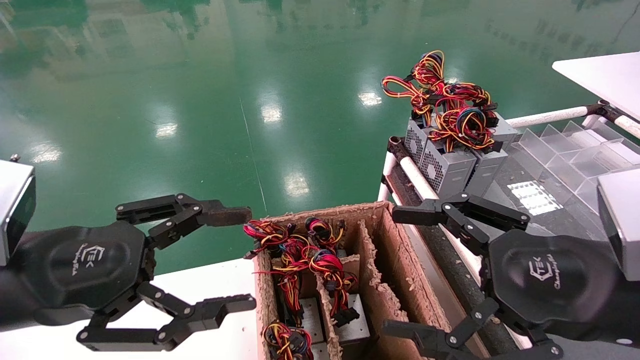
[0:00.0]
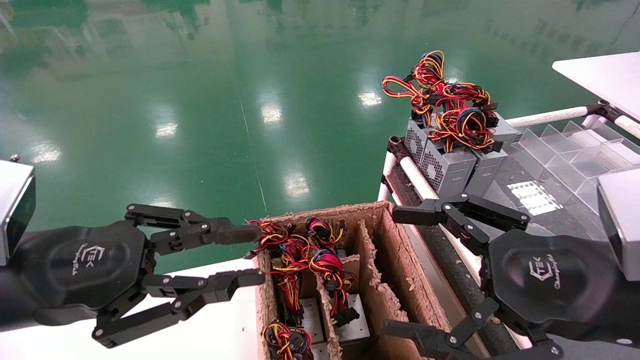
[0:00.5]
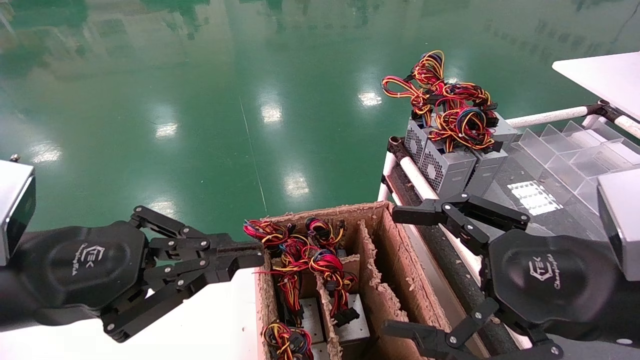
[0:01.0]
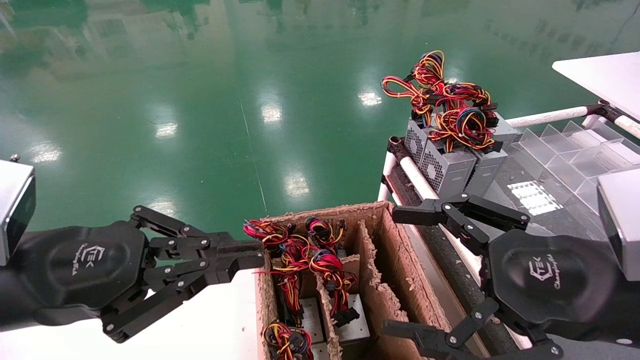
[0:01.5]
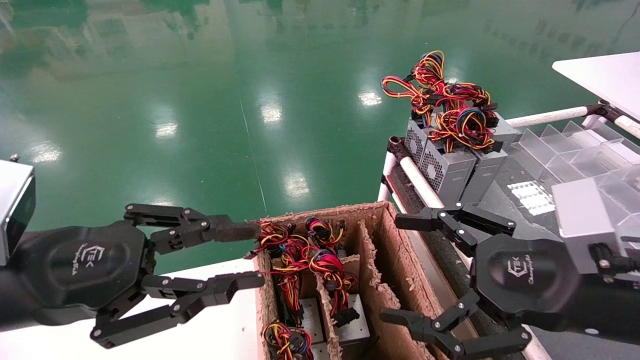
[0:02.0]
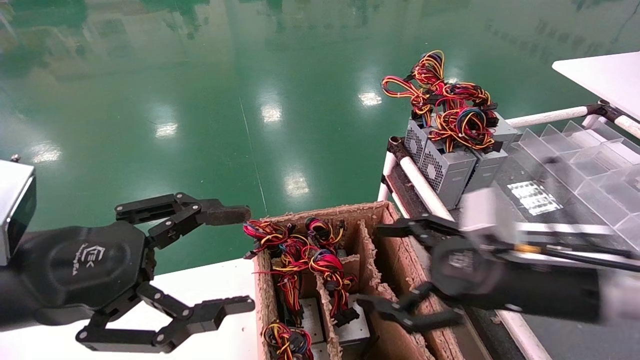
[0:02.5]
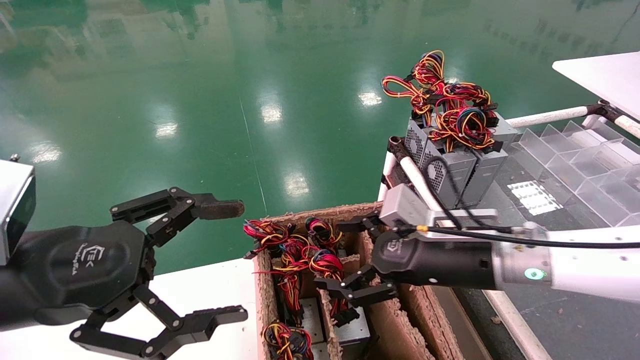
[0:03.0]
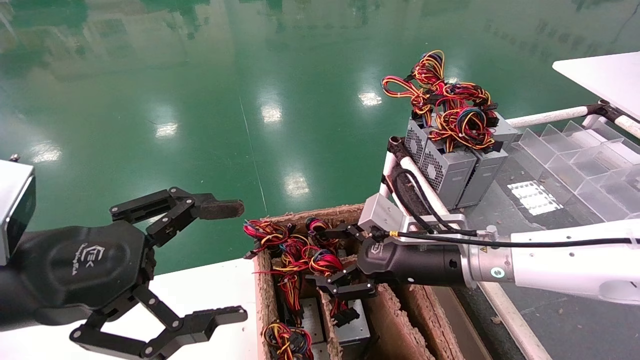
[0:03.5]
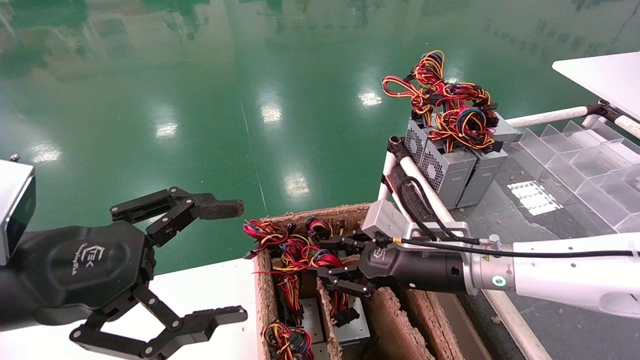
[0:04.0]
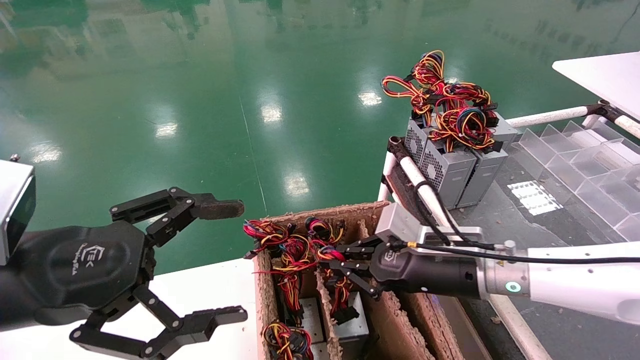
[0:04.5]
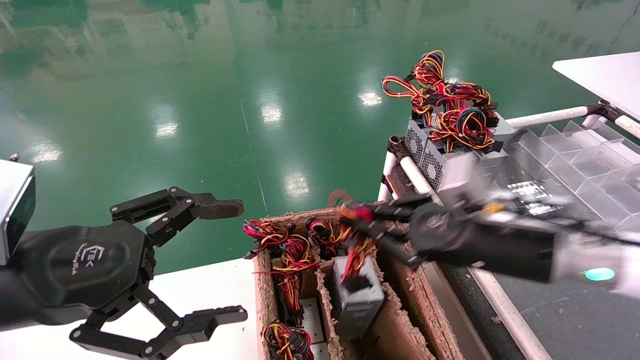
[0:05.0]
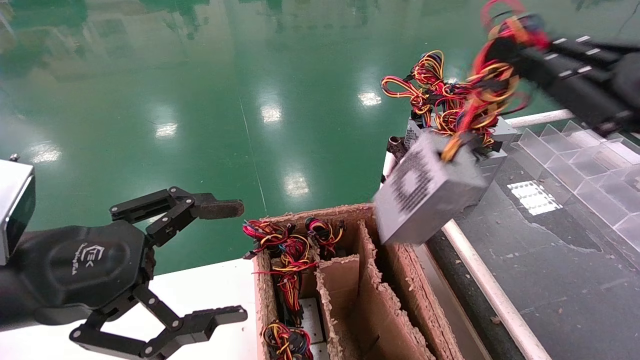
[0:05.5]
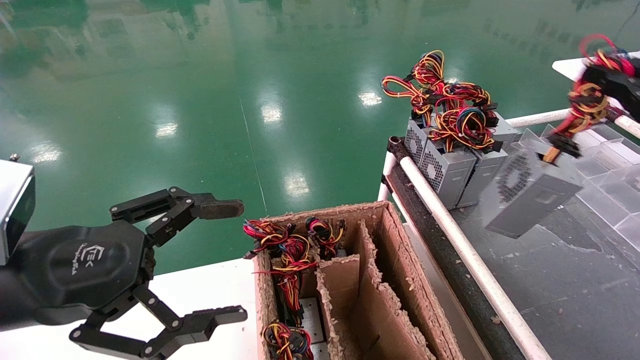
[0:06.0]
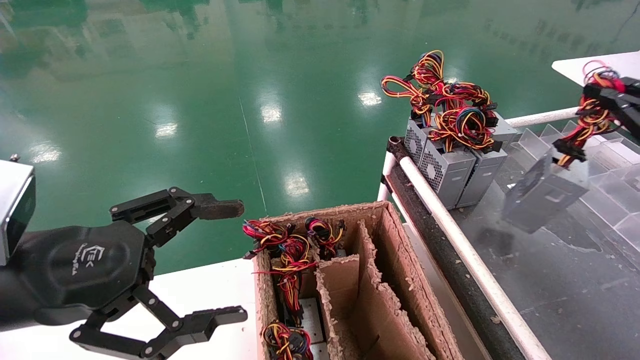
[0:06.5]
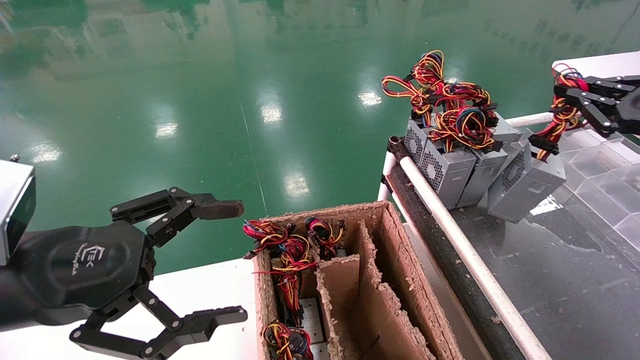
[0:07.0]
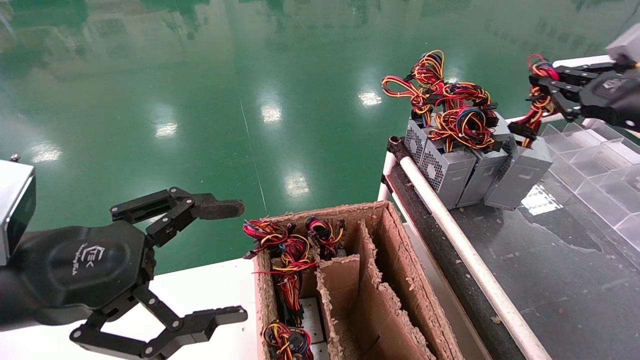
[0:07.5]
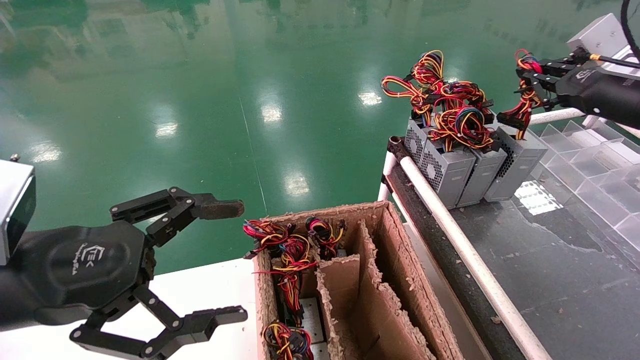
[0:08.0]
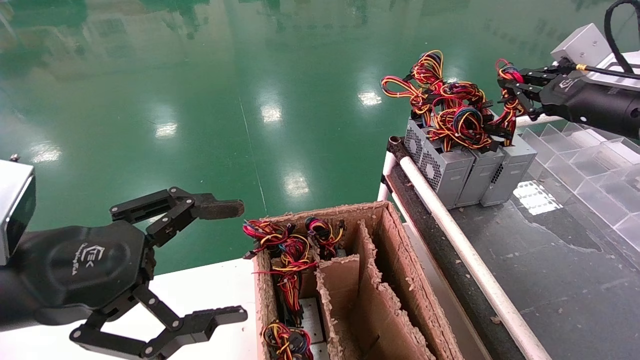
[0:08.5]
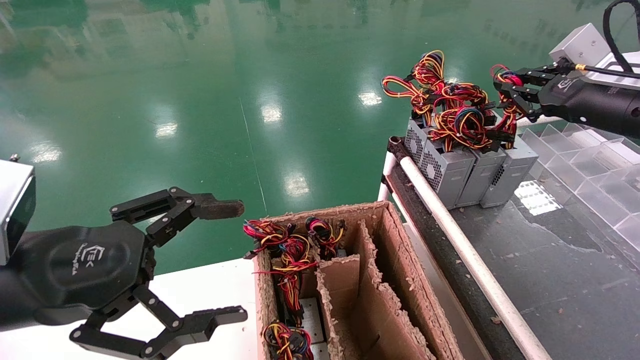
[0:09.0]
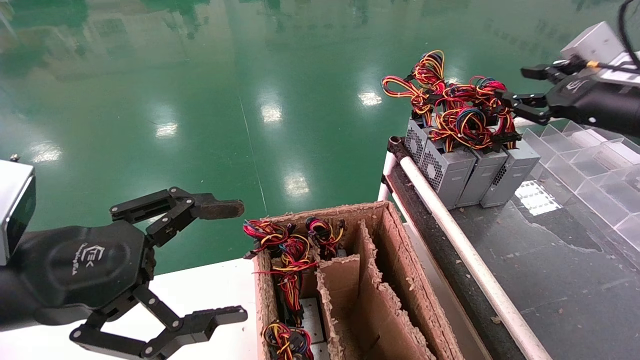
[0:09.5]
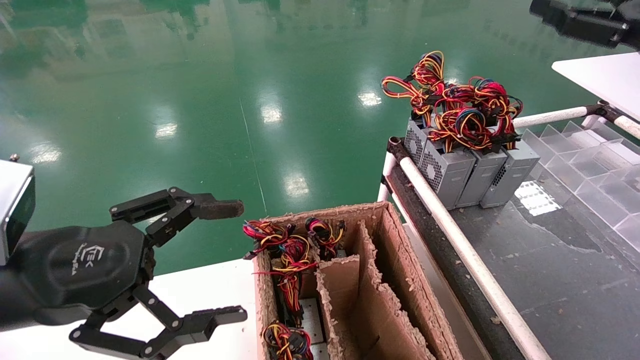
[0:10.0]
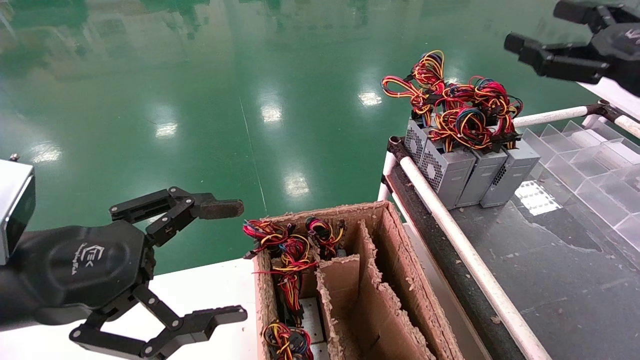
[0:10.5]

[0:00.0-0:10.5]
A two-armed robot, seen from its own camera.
Step, 0:01.5 to 0:04.5: Grab and lift the power supply from the large box.
Step, 0:05.0 to 0:09.0: Place the power supply on the operating table.
0:00.0 to 0:02.0: The left gripper closes.
0:02.0 to 0:04.0: The right gripper goes roughly 20 cm forward, to the left and downward, and closes; the left gripper opens.
0:04.0 to 0:06.5: The right gripper is displaced to the right and upward by some 35 cm, and closes its fingers.
0:06.5 to 0:08.5: The right gripper travels forward and to the left by some 15 cm.
0:08.5 to 0:10.5: The right gripper moves backward, about 10 cm, and opens its fingers.

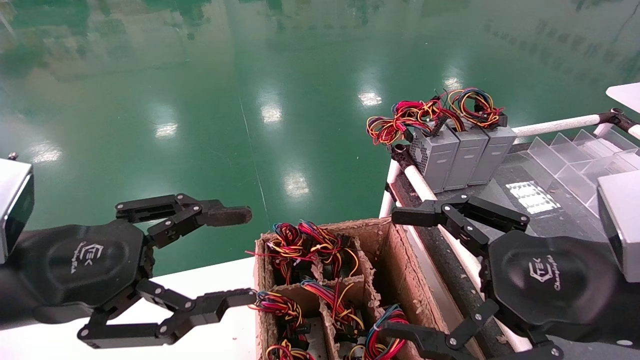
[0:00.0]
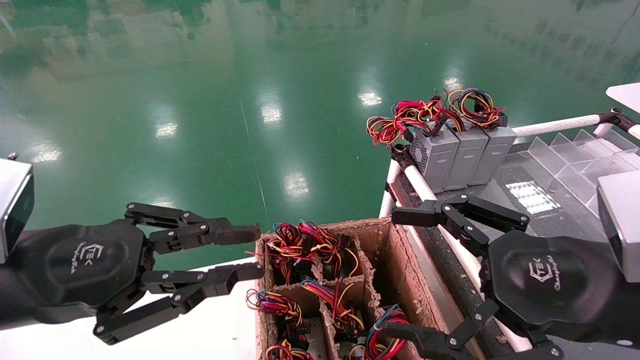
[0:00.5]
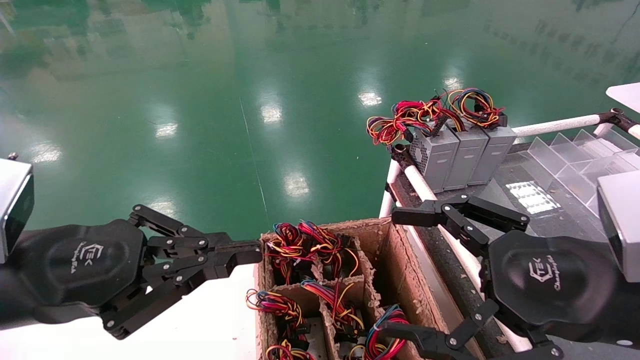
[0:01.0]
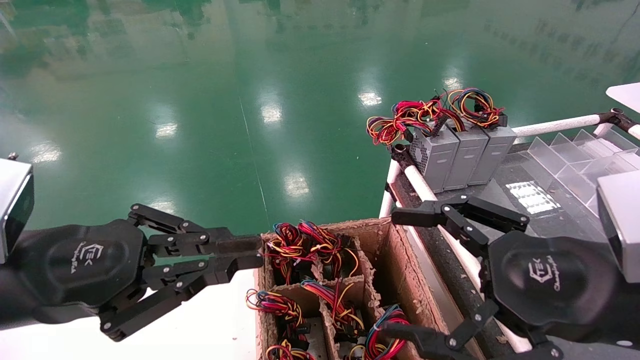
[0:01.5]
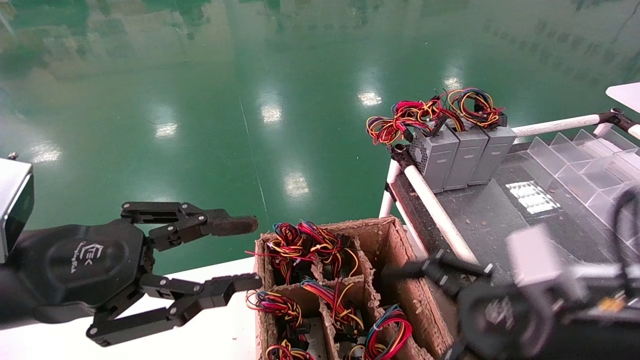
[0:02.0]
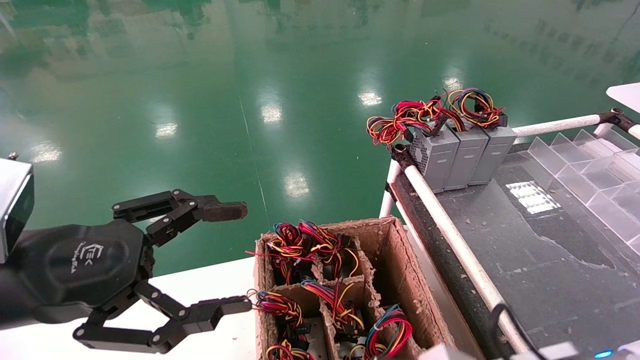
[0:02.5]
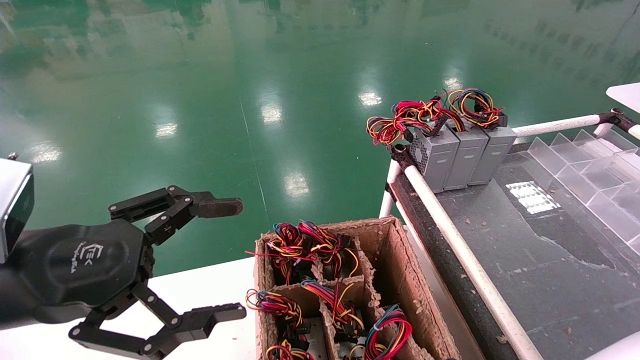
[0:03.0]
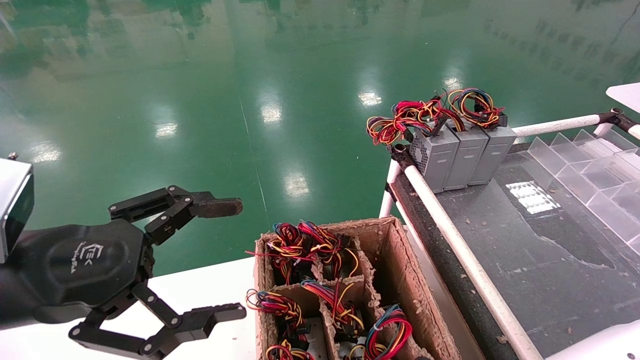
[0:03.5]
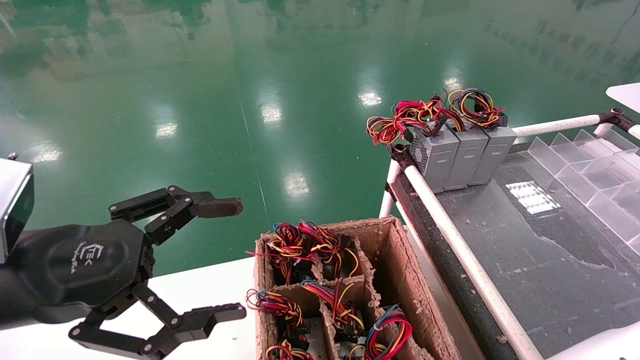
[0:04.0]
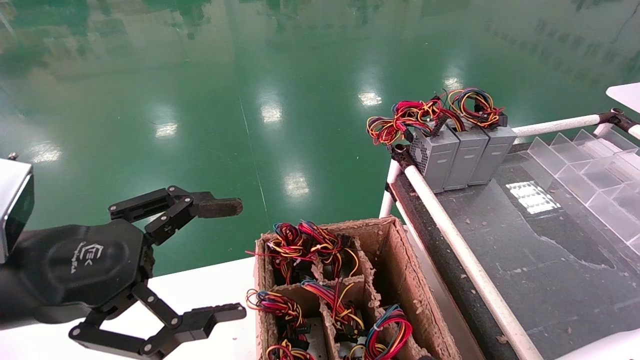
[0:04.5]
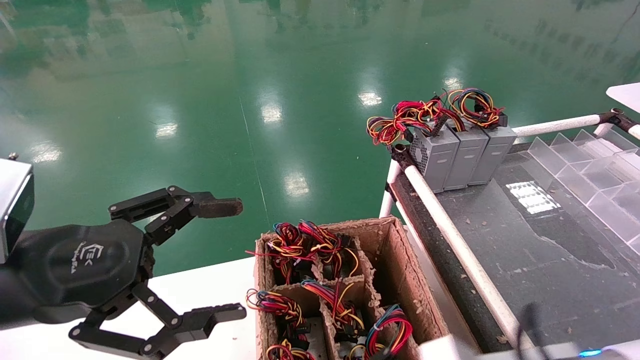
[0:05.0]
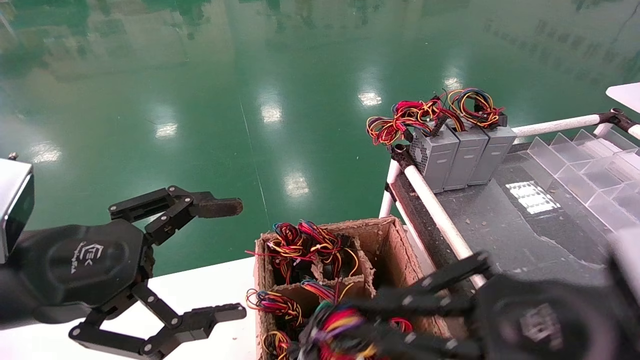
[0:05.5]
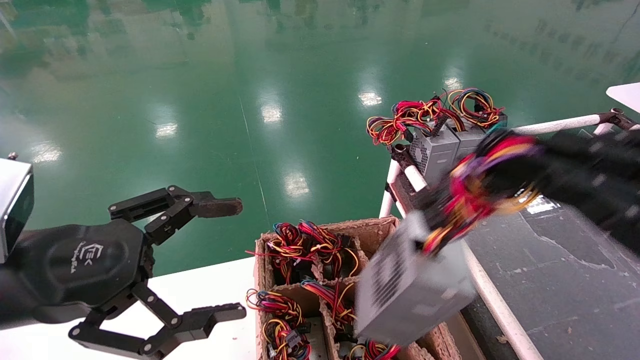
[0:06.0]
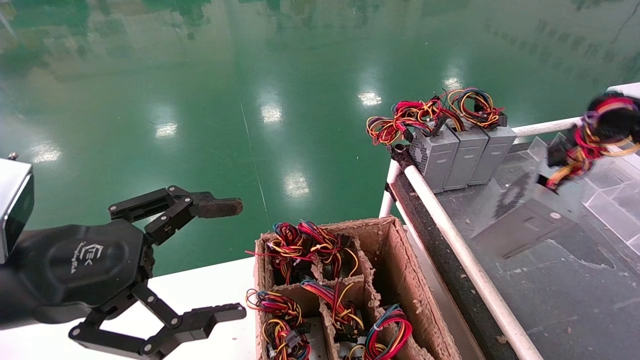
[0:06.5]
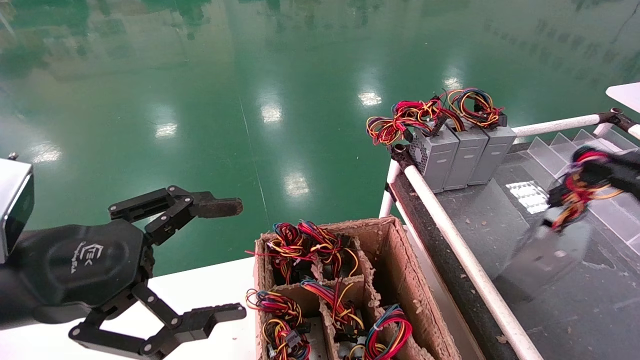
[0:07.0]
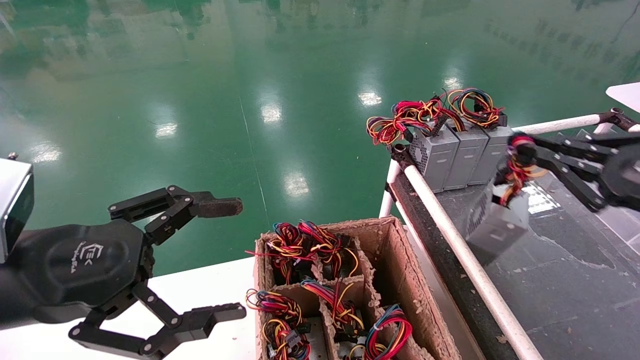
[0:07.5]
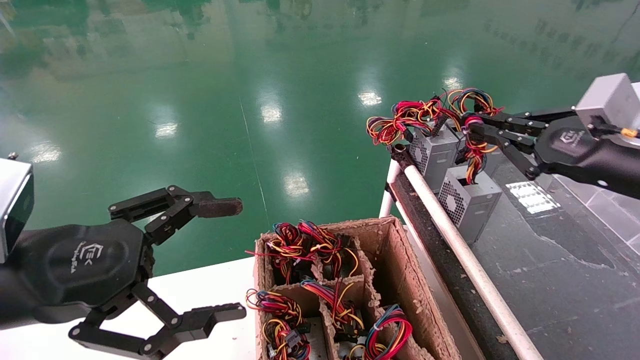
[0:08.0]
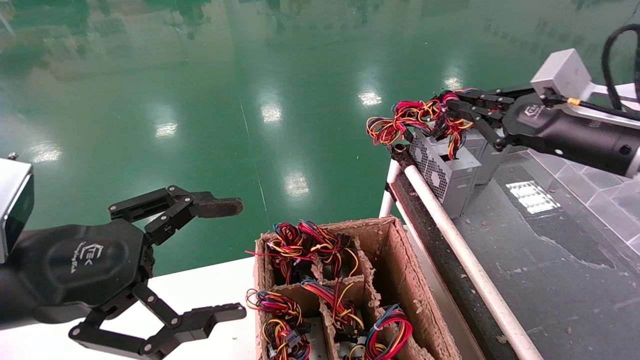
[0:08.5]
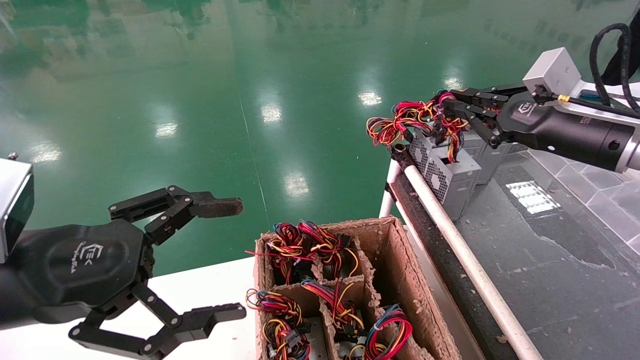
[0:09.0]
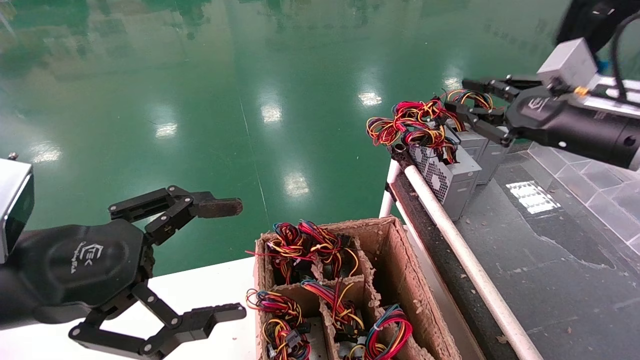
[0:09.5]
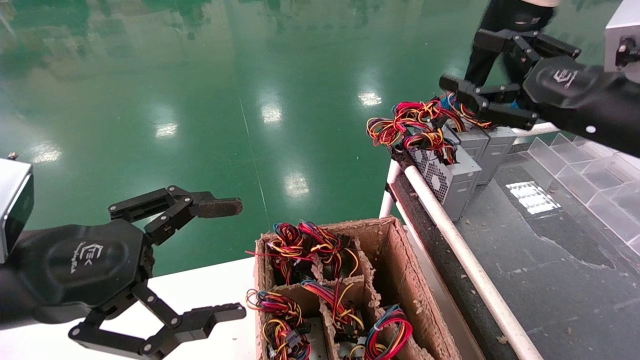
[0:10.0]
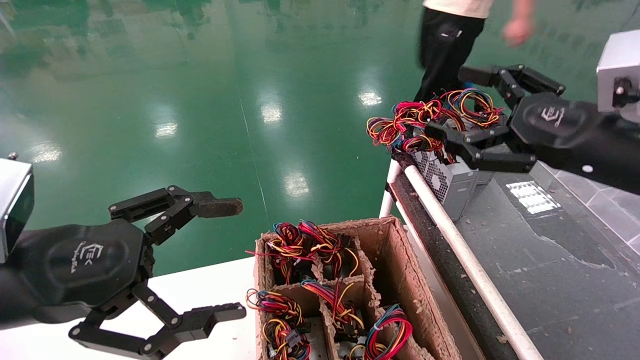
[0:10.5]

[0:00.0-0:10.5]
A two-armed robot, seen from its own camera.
Step, 0:01.5 to 0:04.5: Grab and lift the power supply from the large box.
Step, 0:05.0 to 0:09.0: Place the power supply on the operating table.
0:00.0 to 0:02.0: The right gripper ends up some 5 cm from where it was, while the left gripper closes up.
0:02.0 to 0:04.0: The left gripper opens. The right gripper moves downward and to the left, approximately 15 cm, and closes its fingers.
0:04.0 to 0:06.5: The right gripper travels to the right and upward by approximately 35 cm.
0:06.5 to 0:08.5: The right gripper heads forward and to the left, covering roughly 20 cm.
0:08.5 to 0:10.5: The right gripper travels backward by approximately 5 cm, and opens its fingers.
